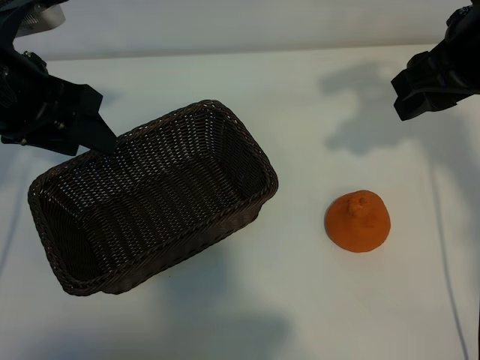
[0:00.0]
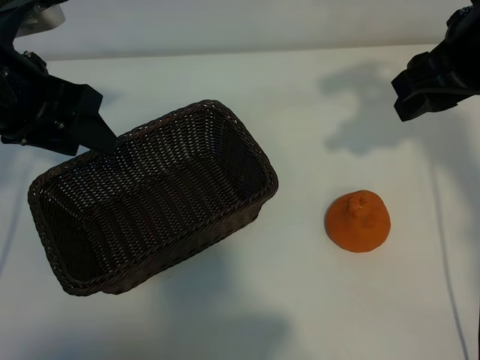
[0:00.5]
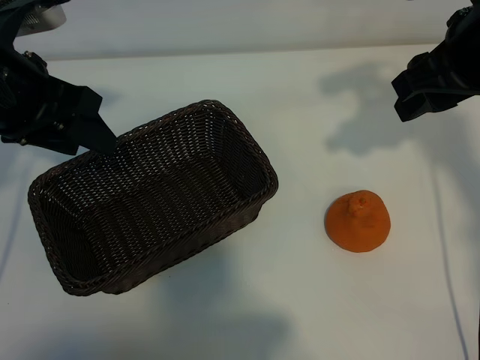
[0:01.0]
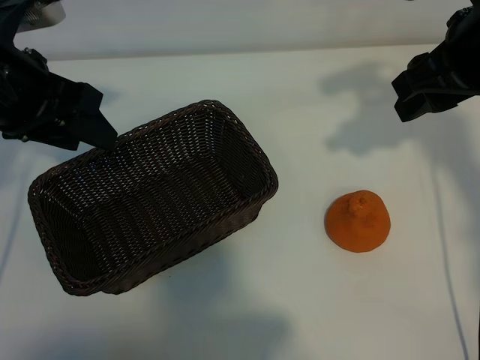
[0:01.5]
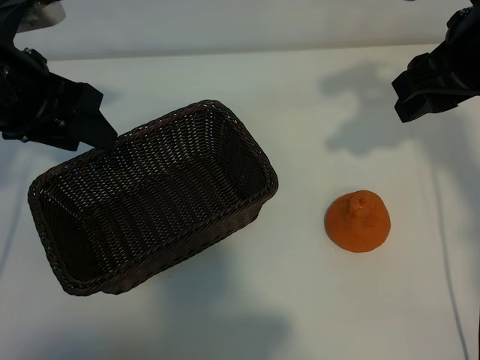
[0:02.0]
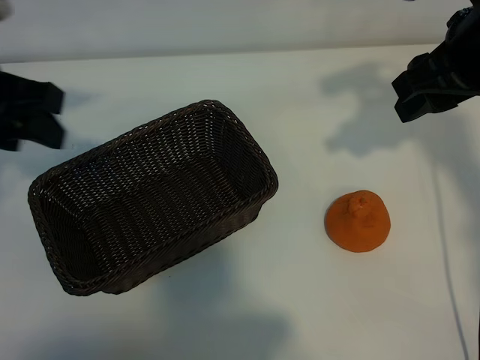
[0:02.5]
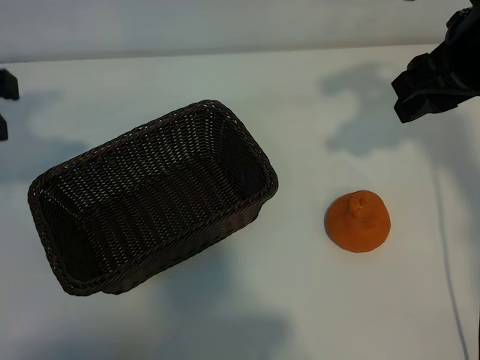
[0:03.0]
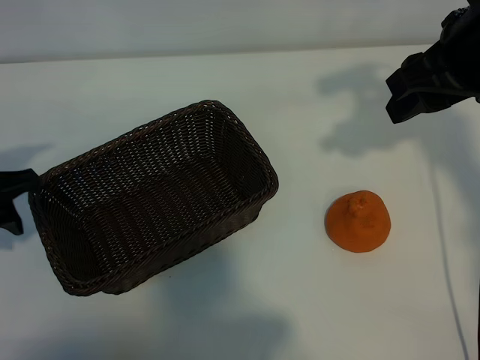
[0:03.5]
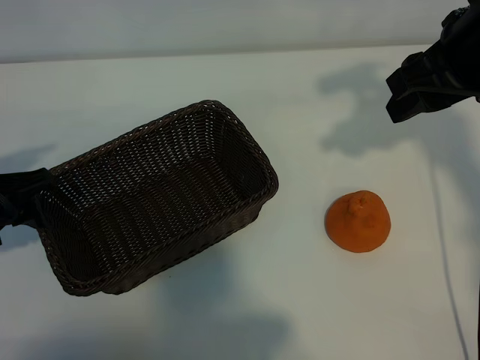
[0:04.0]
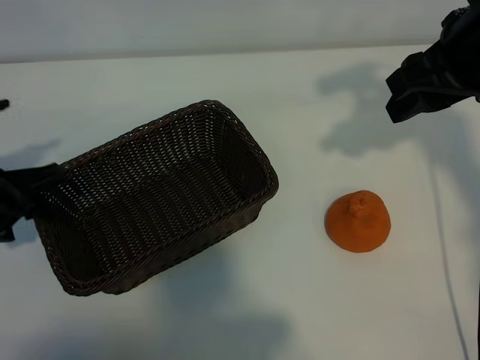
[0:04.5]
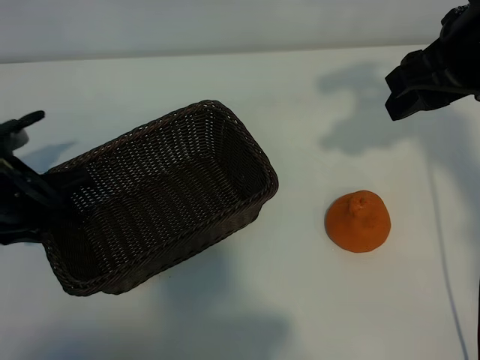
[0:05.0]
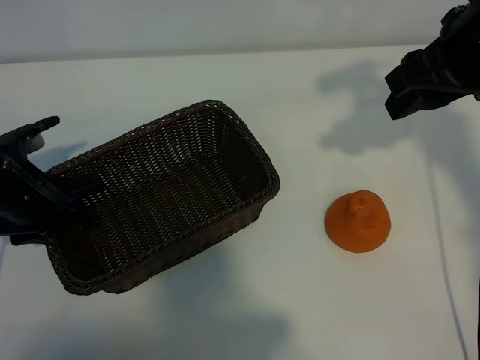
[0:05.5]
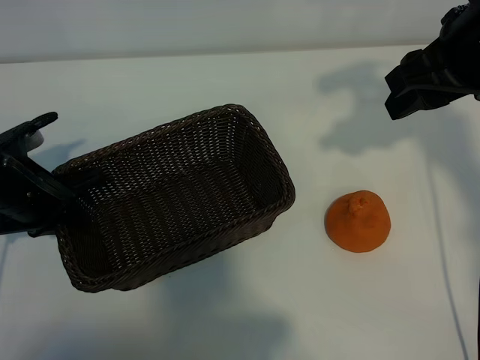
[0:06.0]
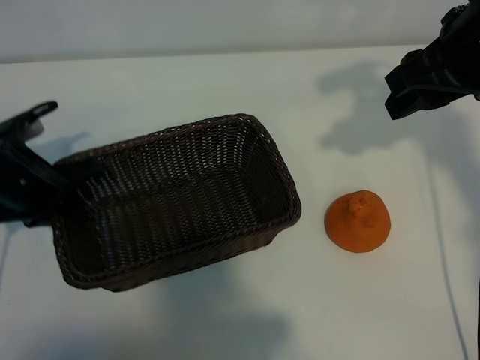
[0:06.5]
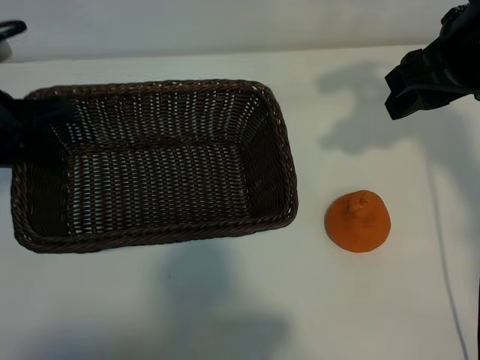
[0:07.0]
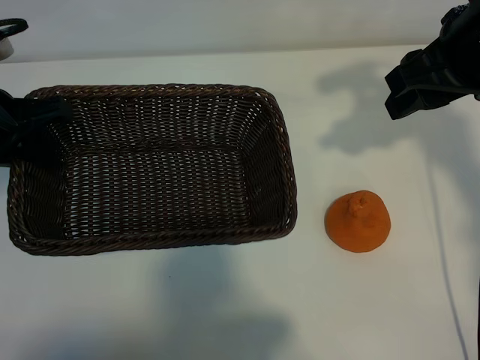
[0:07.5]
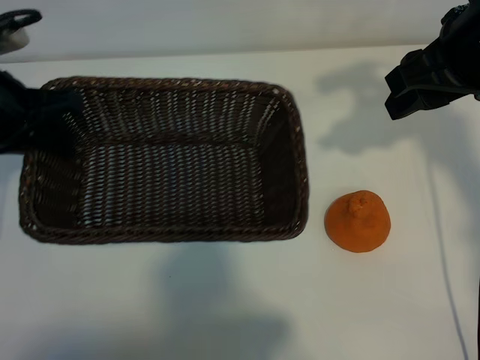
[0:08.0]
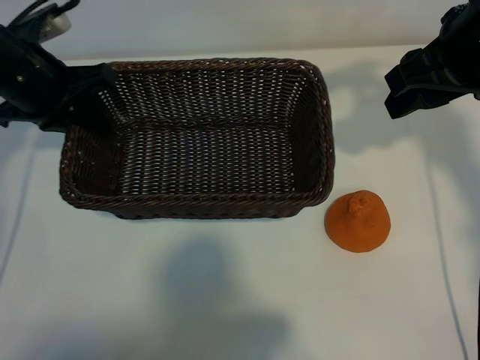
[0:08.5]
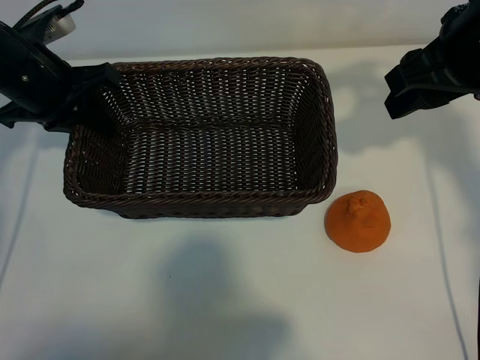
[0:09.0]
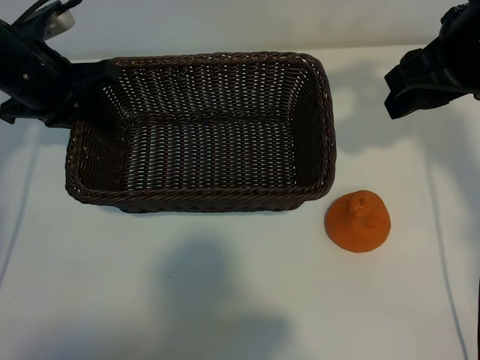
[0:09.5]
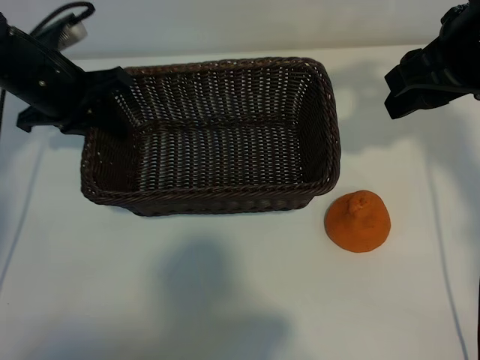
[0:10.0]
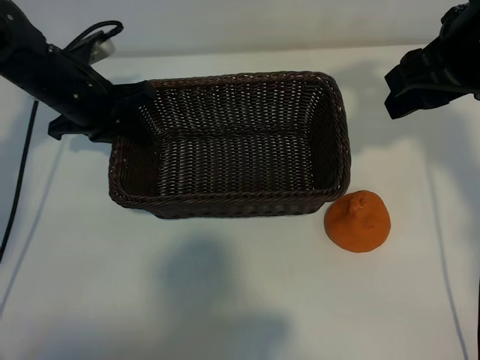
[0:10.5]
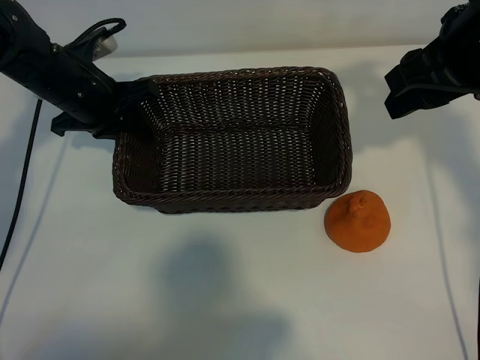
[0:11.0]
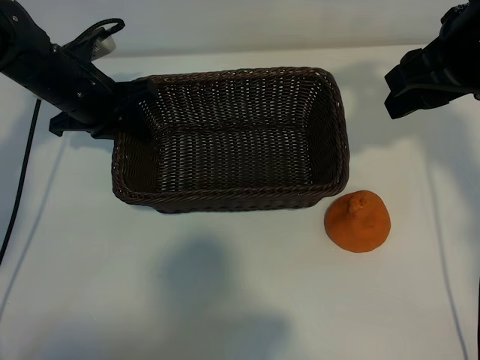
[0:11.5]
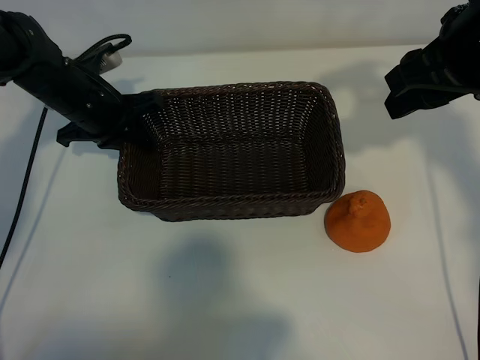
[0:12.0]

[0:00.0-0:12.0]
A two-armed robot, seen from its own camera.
Task of the whole recording: pick up the orange and put it into the basket.
Step, 0:01.0 to 0:05.5: Grasp the basket with left gripper.

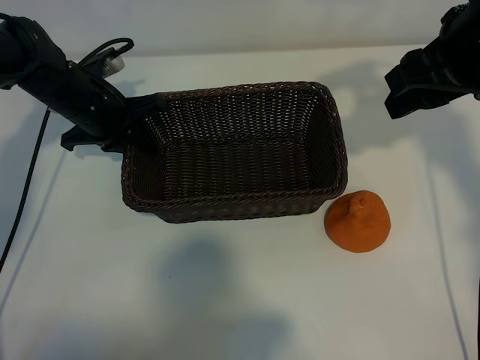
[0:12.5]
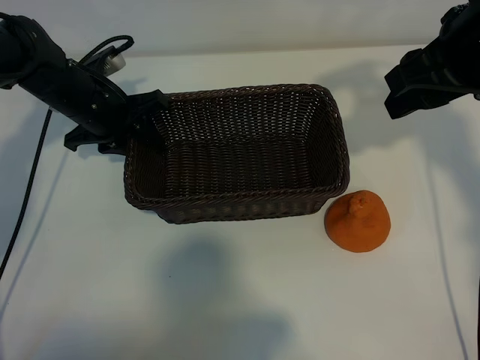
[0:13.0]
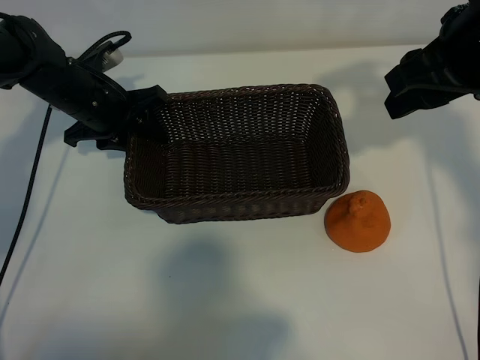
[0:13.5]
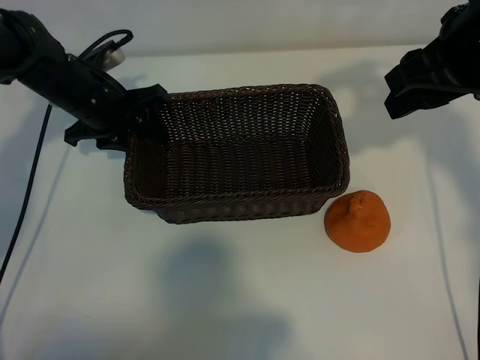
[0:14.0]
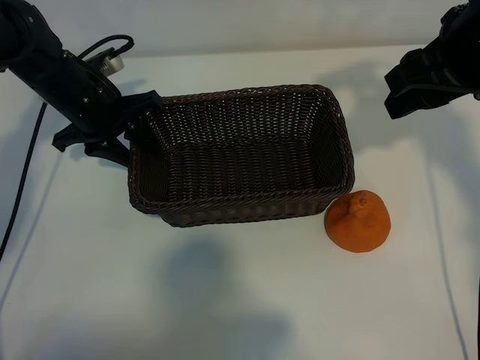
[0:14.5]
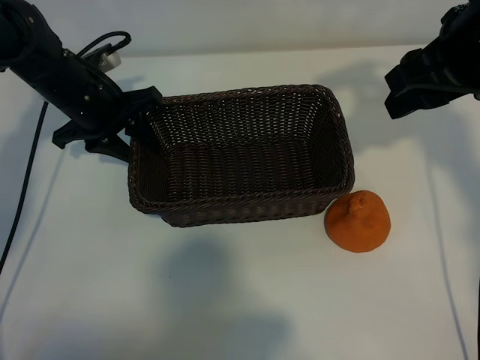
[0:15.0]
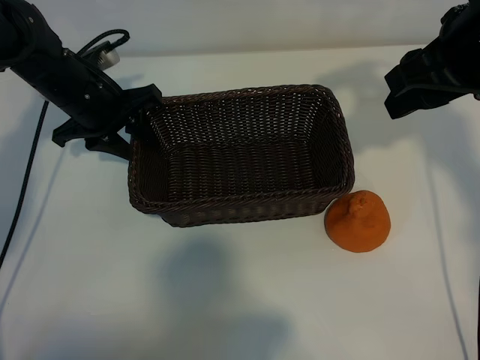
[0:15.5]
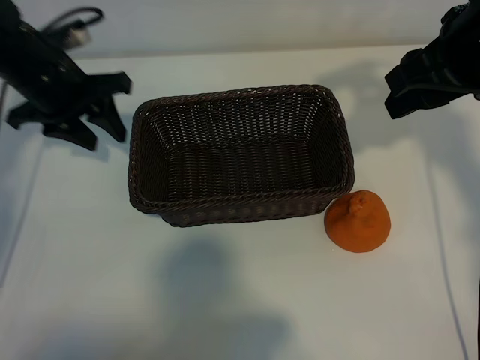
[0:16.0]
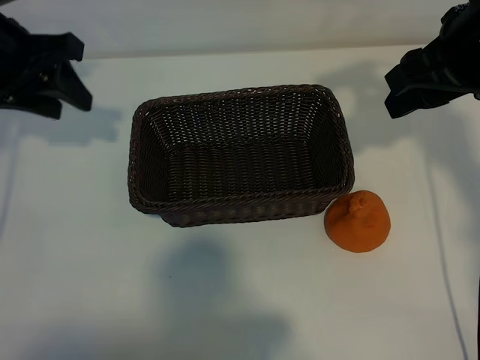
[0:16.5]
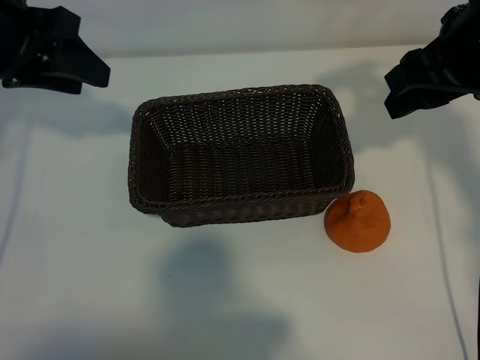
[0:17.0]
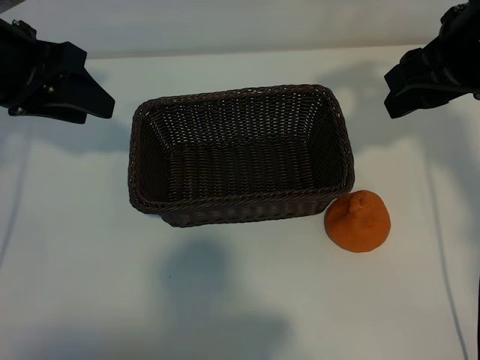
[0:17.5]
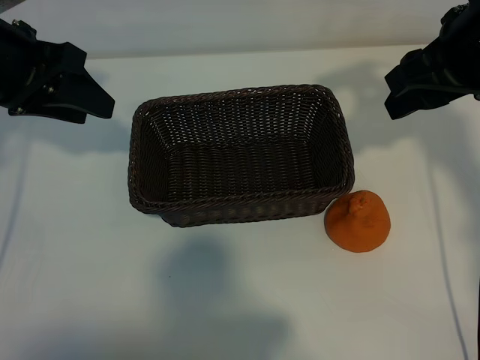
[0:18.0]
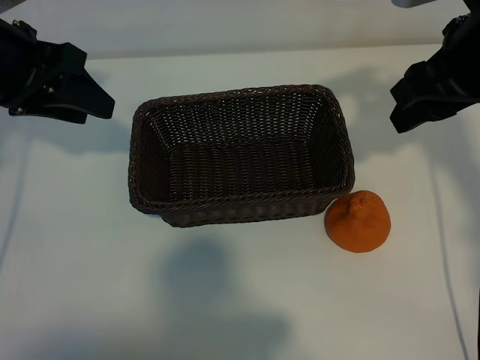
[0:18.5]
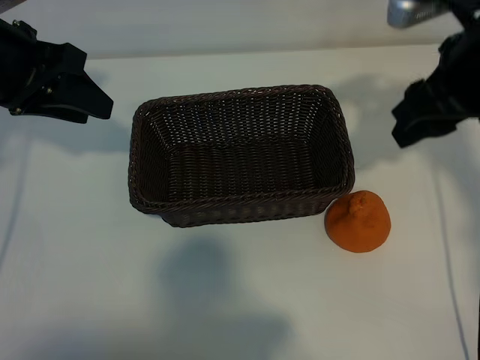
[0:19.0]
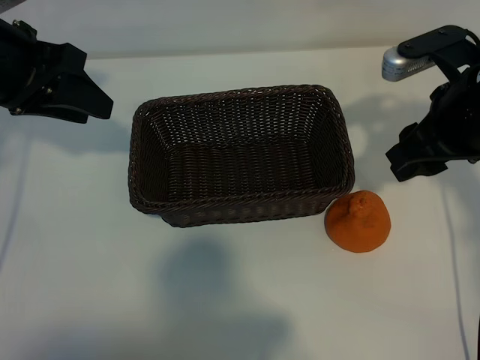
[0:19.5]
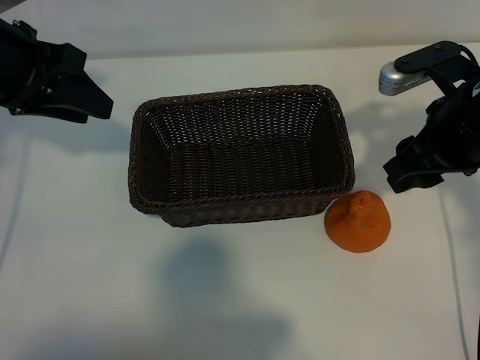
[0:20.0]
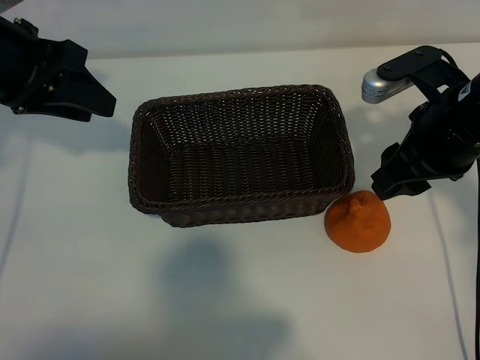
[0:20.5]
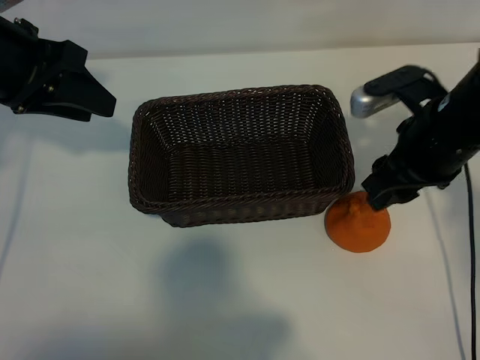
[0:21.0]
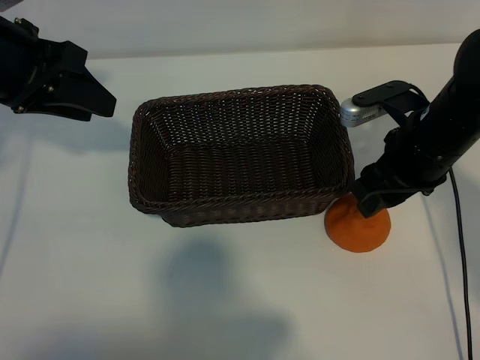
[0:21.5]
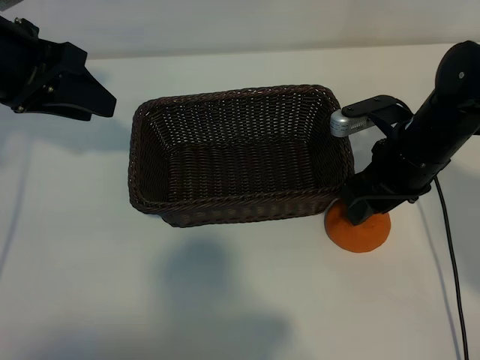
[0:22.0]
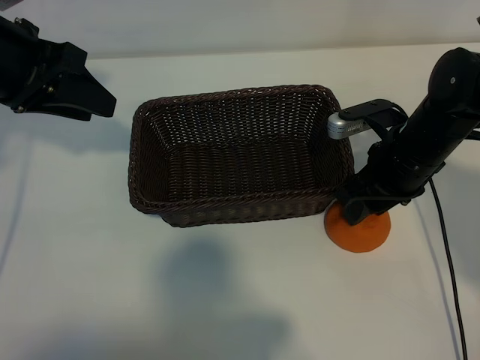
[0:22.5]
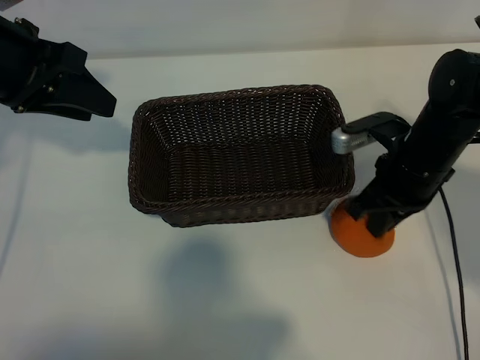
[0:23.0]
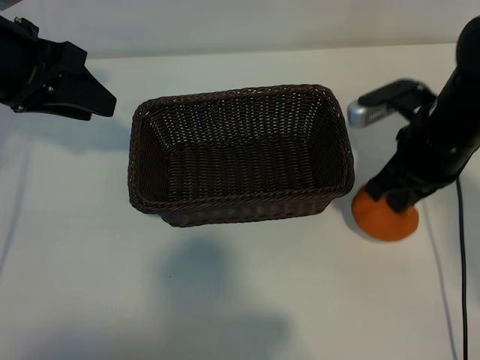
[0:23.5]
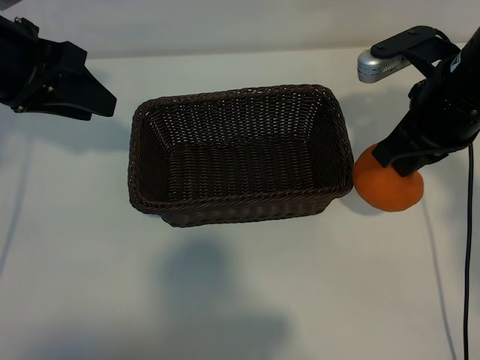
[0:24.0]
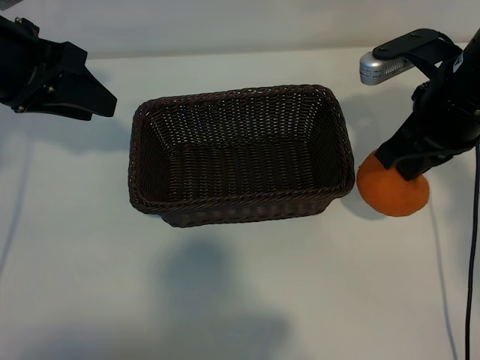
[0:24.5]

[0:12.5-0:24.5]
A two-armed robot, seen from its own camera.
Task of the whole recording: pick up the orange and put it into the basket.
Step, 0:14.5 to 0:22.5: Grasp the orange with right gripper.

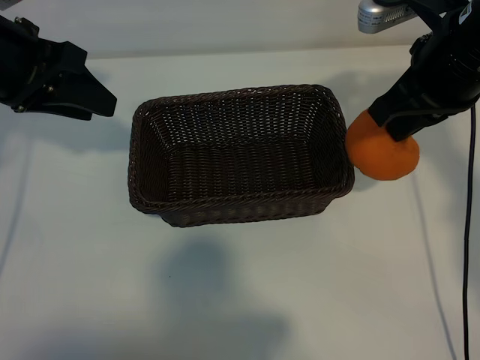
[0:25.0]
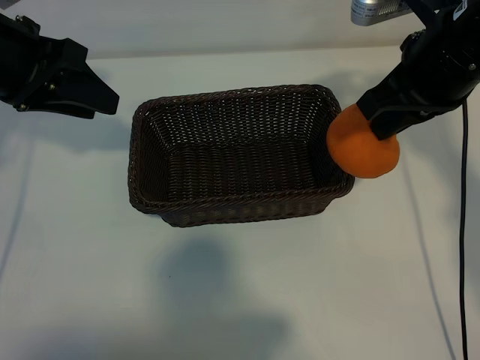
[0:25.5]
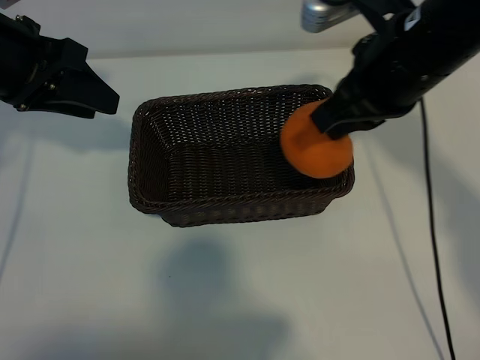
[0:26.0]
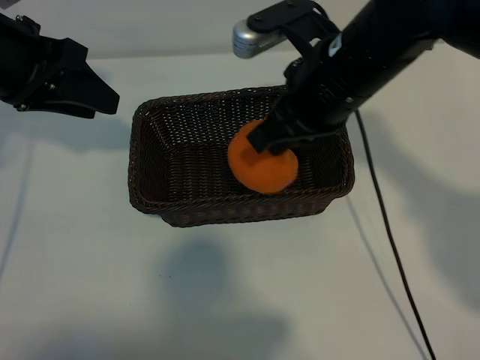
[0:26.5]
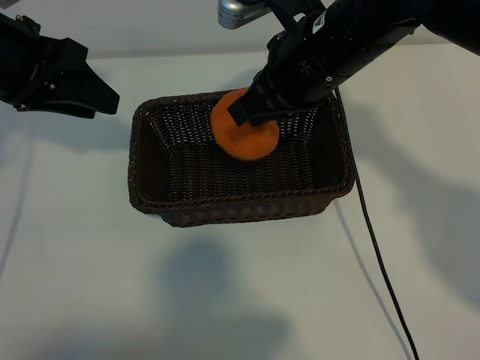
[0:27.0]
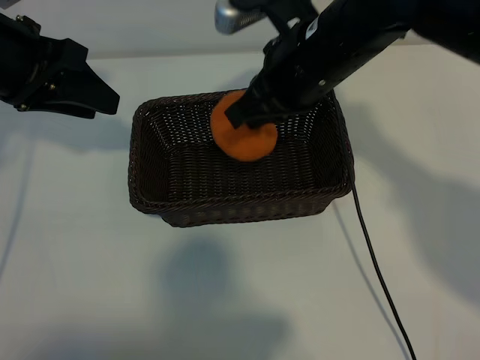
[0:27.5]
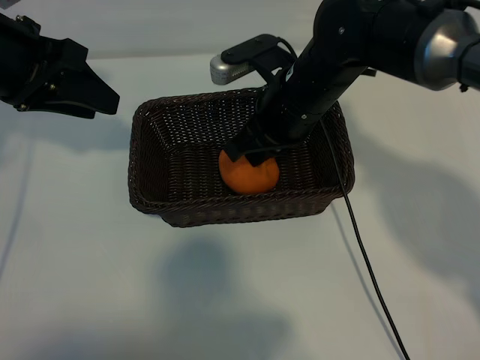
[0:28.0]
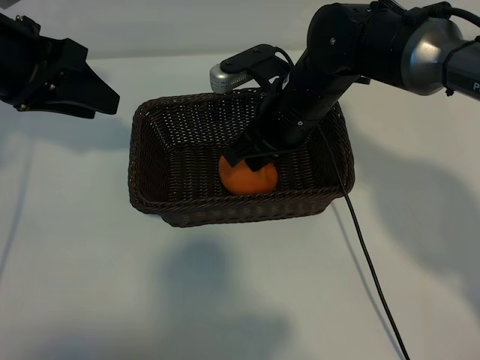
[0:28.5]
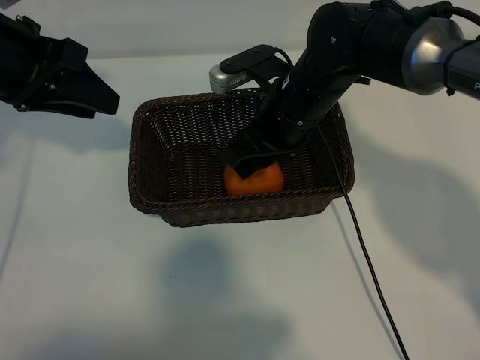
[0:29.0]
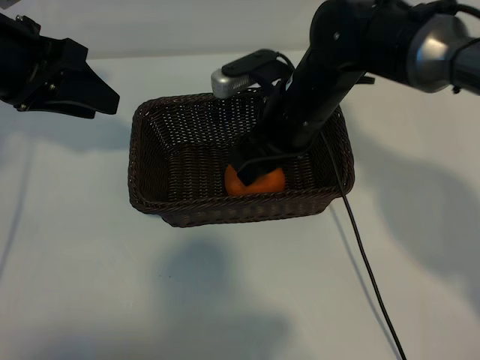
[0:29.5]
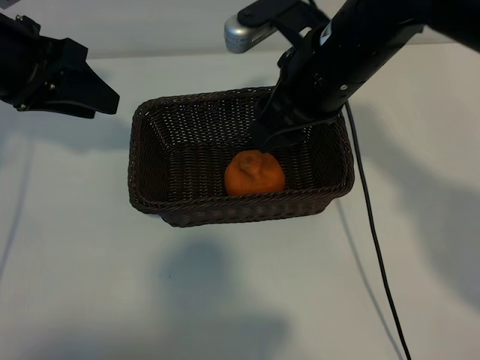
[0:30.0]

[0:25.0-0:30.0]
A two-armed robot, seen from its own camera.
Task of the whole recording: pick up the orange and put it into the basket.
Step, 0:25.0 to 0:29.0: Place the orange in the basket with right gripper.
